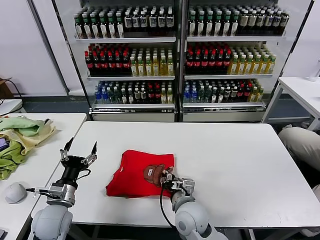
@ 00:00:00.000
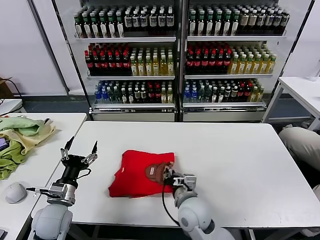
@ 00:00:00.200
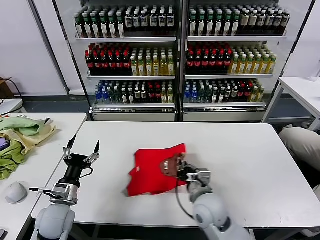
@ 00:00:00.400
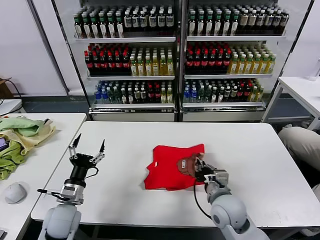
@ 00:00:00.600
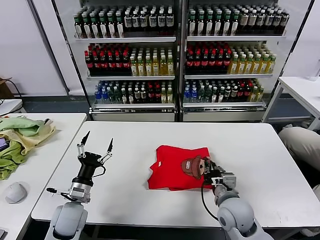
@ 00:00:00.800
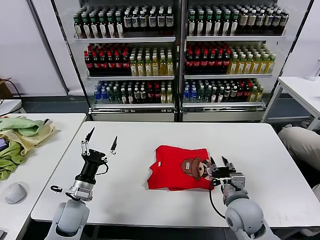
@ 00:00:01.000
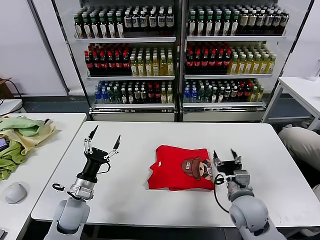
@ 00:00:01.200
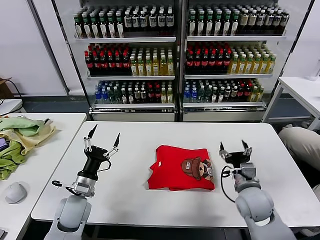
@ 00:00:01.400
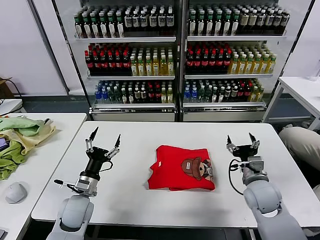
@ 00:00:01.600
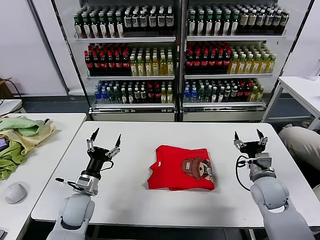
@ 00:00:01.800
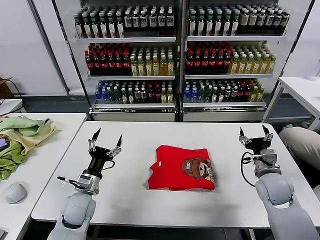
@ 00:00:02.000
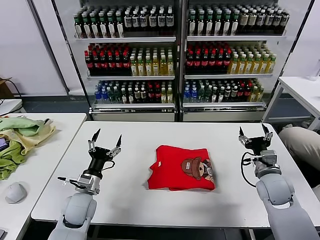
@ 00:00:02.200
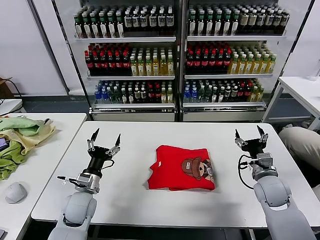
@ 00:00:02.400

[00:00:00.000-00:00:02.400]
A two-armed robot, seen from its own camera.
Task of the whole recording: fold and organize the clothes.
00:00:00.000 to 00:00:01.200: The right gripper goes some 15 cm to the right, and closes and opens again, while the left gripper shifts by about 5 cm.
00:00:01.200 to 00:00:02.400: The right gripper travels to the right and forward by some 10 cm.
